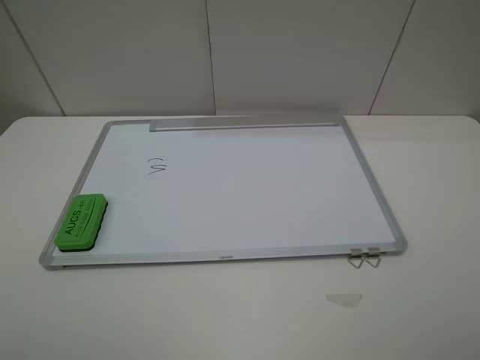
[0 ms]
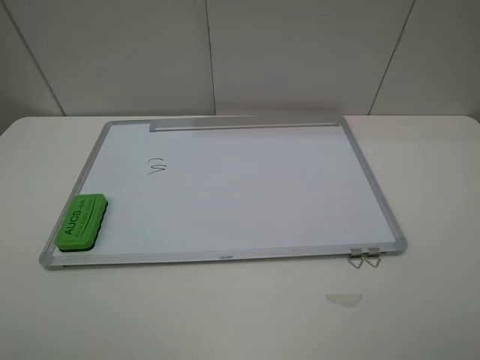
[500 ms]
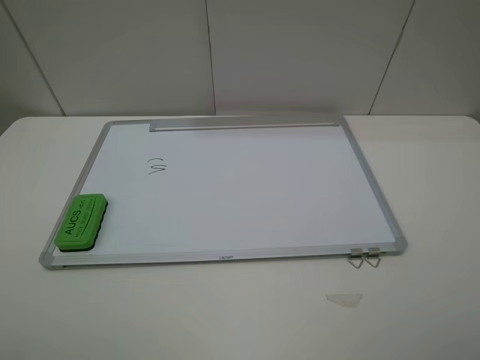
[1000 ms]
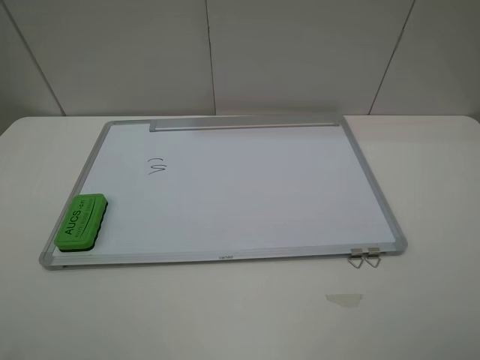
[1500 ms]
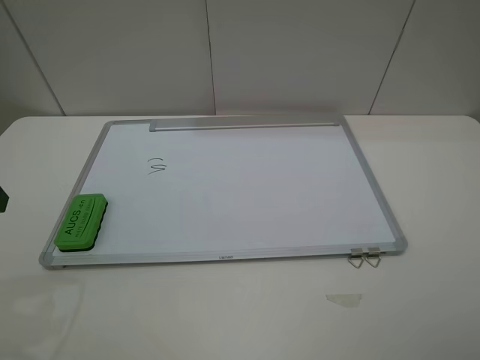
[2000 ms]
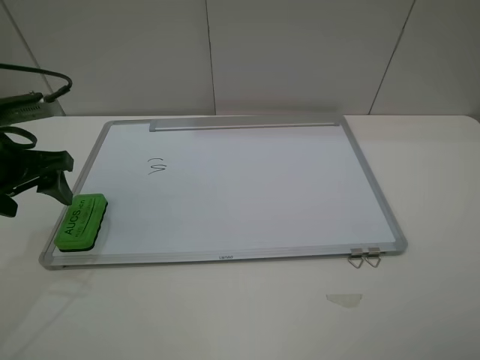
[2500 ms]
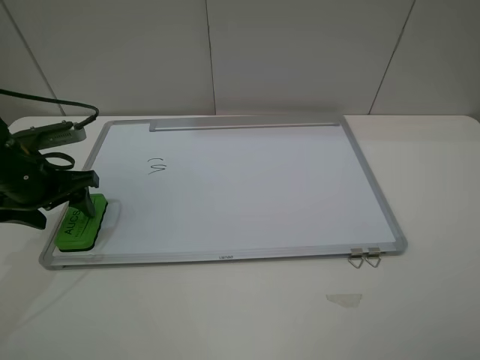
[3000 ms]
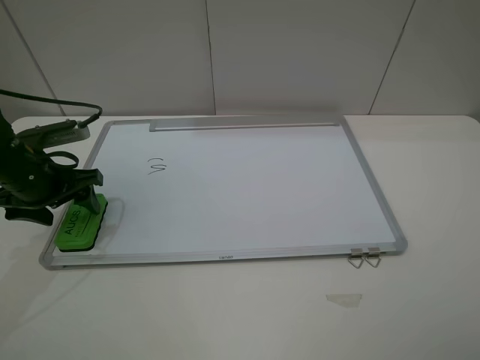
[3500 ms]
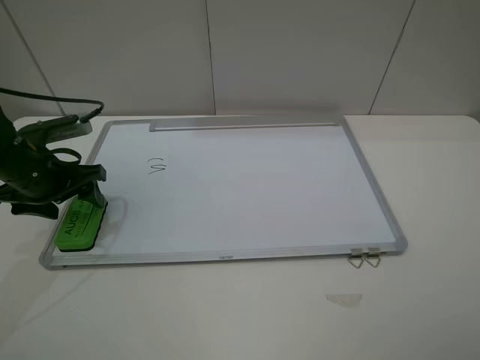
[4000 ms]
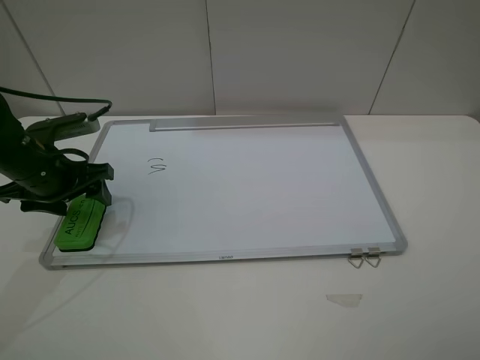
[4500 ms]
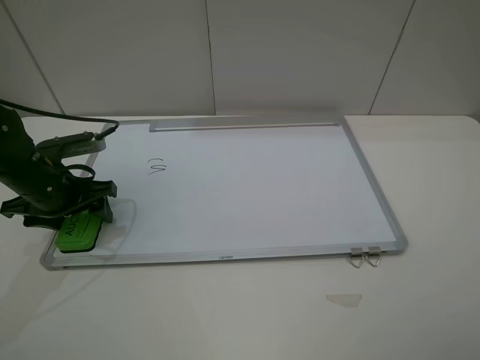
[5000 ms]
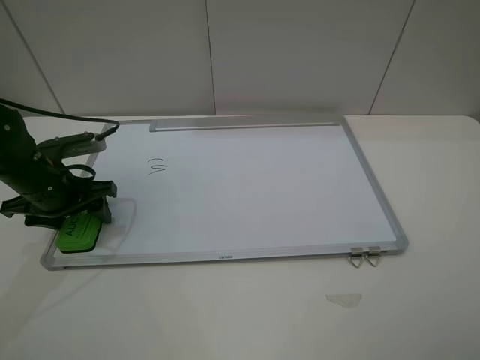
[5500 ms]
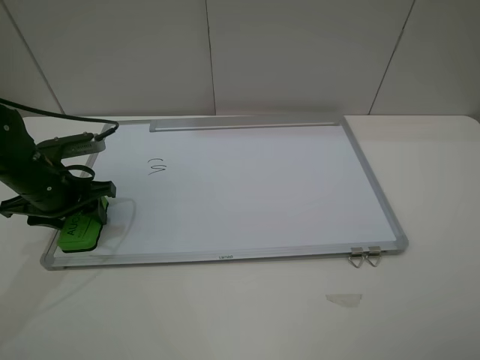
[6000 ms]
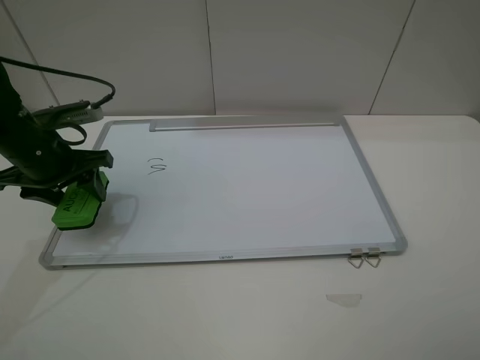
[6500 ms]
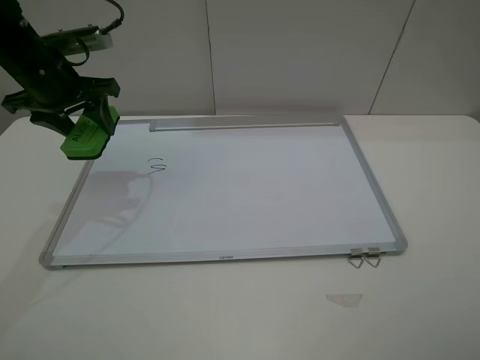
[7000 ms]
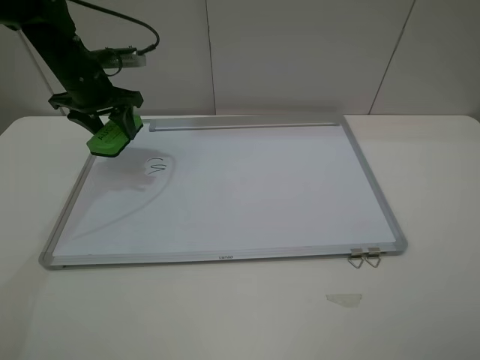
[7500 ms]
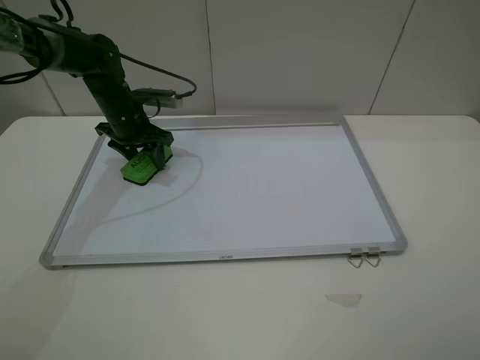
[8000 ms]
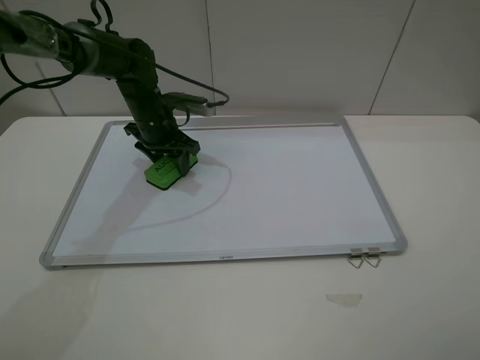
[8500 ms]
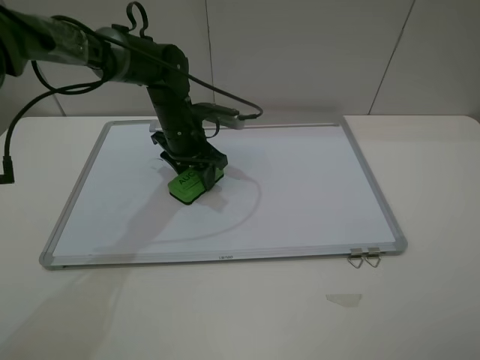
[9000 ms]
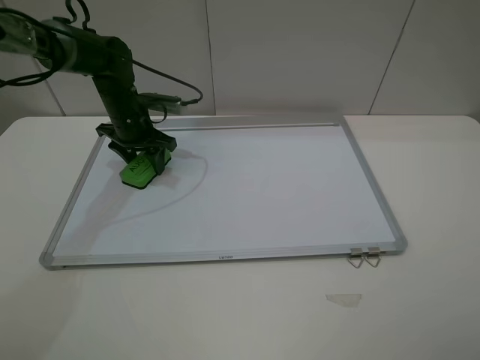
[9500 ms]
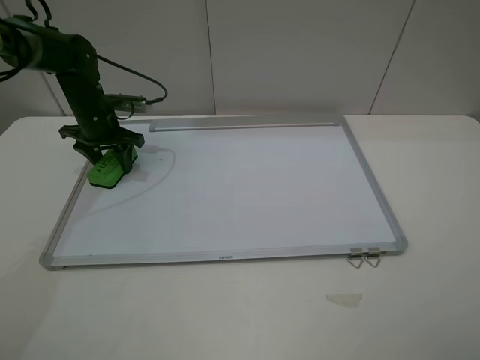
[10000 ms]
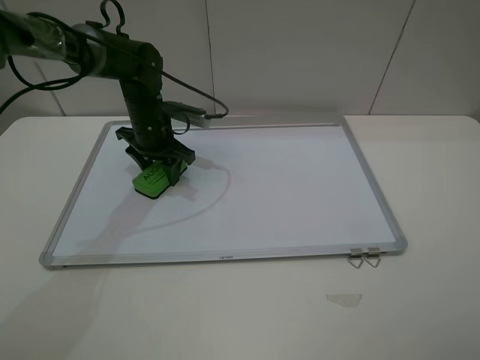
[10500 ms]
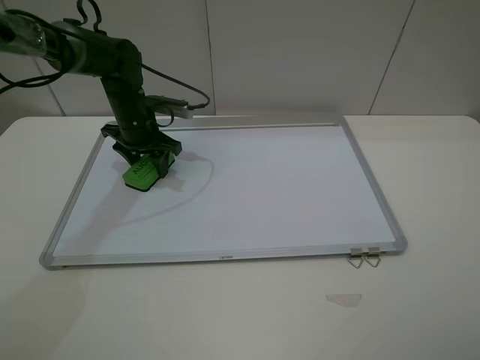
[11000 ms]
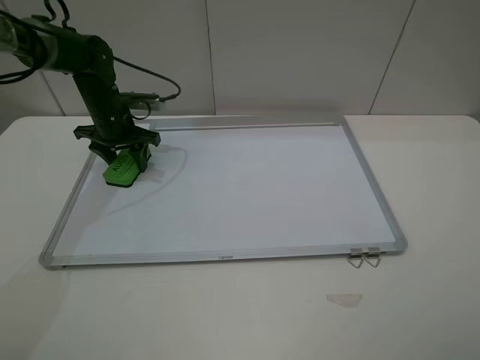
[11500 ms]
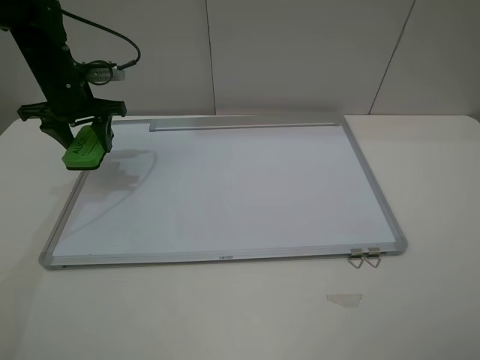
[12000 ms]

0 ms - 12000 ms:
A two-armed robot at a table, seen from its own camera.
Step, 0 ms - 5500 ms: Grasp the eraser with the left gripper.
Step, 6000 ms - 11000 ms: Grasp the eraser and wipe the blackboard with the left gripper.
2000 ms - 4000 ms: The left gripper travels downward and forward by about 15 cm.
4000 ms - 6000 ms: The left gripper closes its fingers.
6000 ms - 8000 ms: The left gripper heads forward and to the right, covering about 20 cm.
8000 ms - 10000 ms: The left gripper travels to the right and back again, approximately 10 cm each way.
10000 ms - 12000 ms: The left gripper travels upward by some 10 cm, and goes to the right and returns, roughly 10 cm each way.

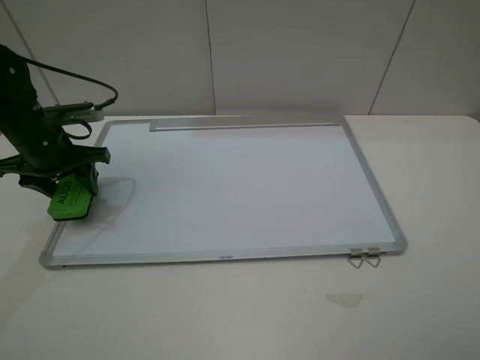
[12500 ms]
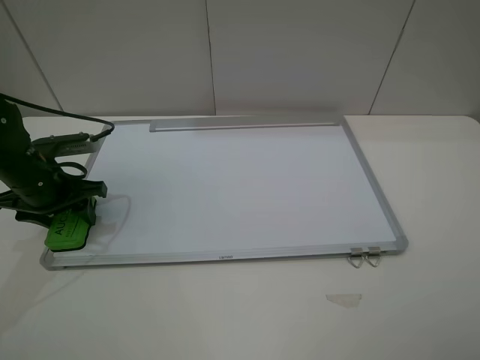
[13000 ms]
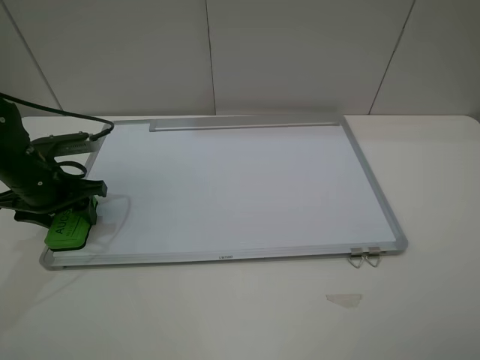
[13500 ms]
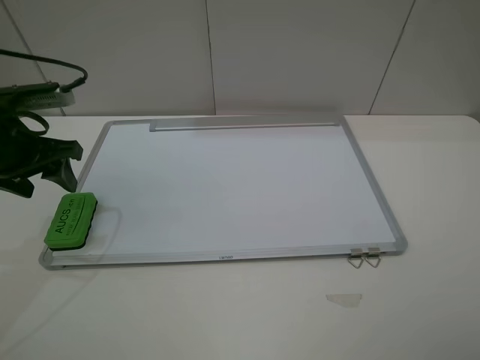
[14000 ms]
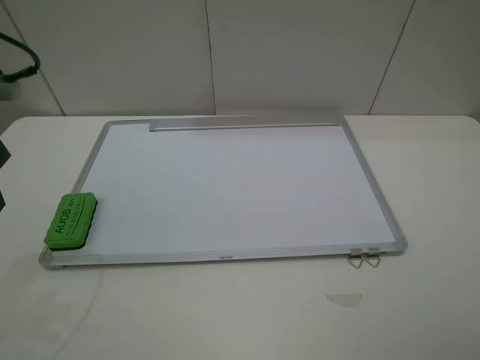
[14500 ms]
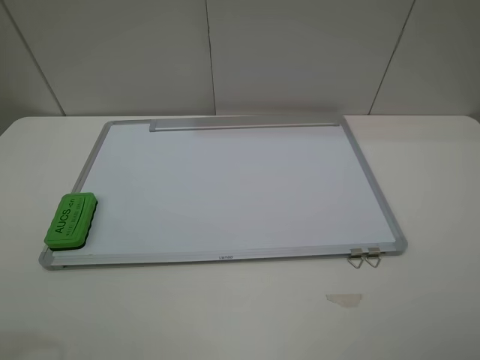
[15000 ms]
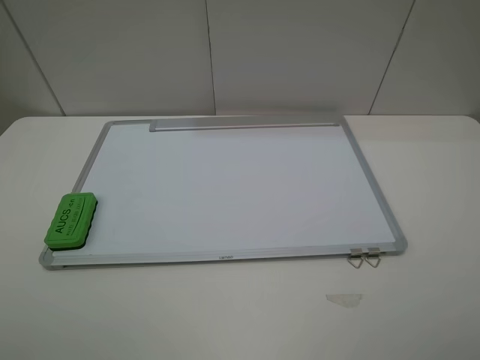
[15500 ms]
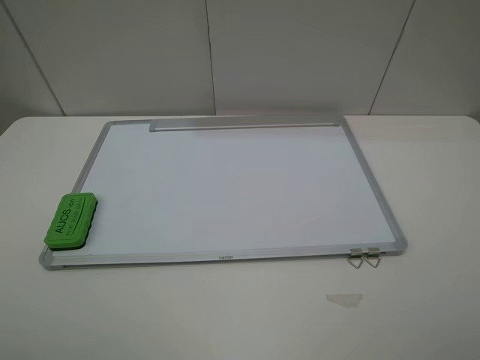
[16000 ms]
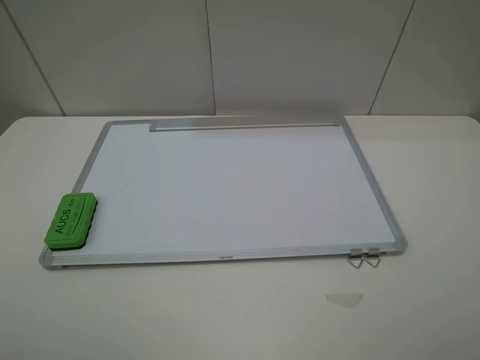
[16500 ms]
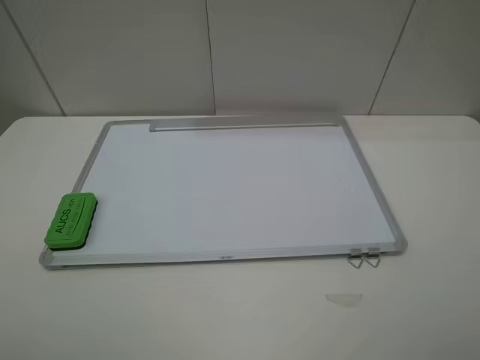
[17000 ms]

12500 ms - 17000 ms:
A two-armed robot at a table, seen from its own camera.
12500 ms - 14500 ms: The left gripper shifts about 20 cm backward and upward.
14500 ms - 17000 ms: The left gripper is displaced backward by roughly 20 cm.

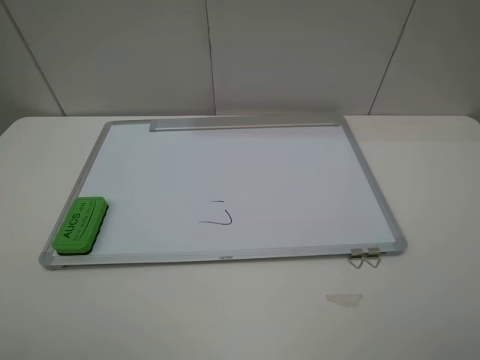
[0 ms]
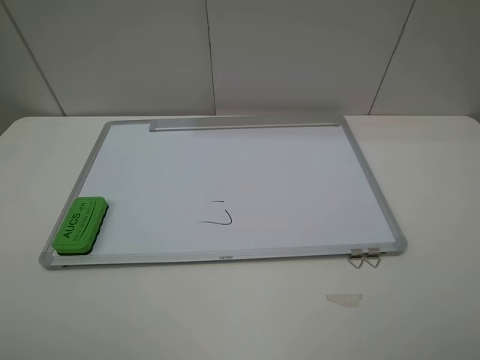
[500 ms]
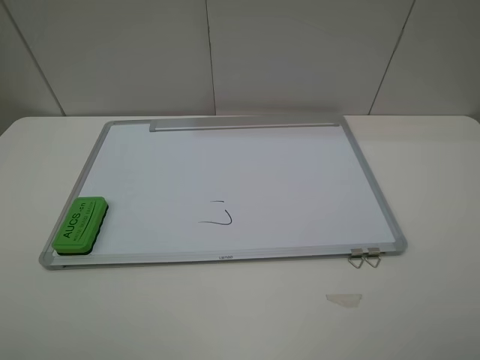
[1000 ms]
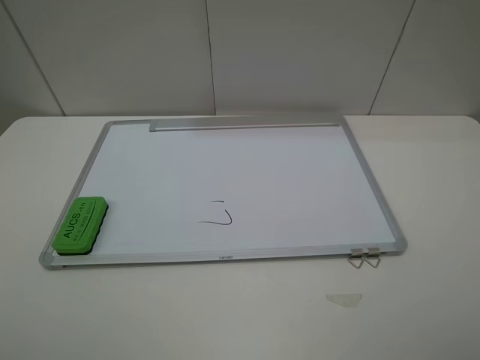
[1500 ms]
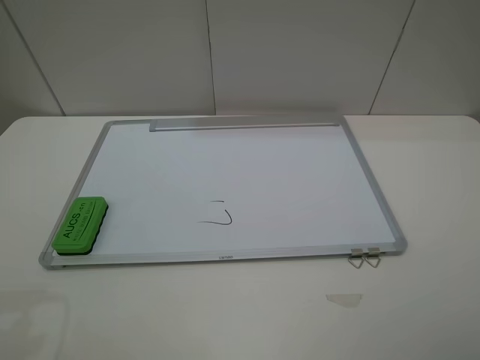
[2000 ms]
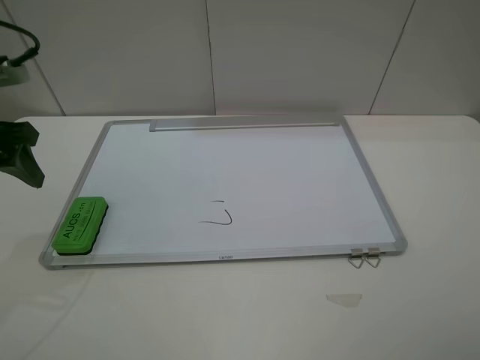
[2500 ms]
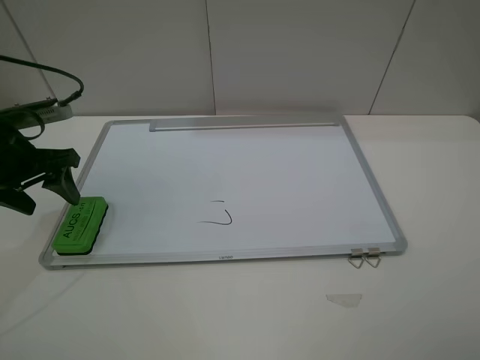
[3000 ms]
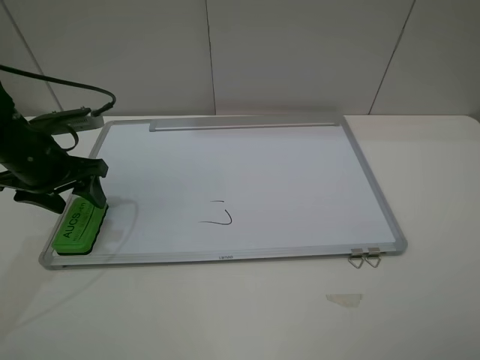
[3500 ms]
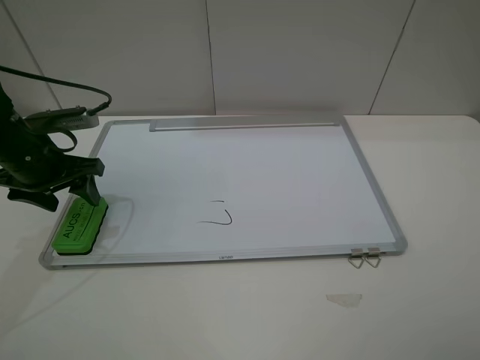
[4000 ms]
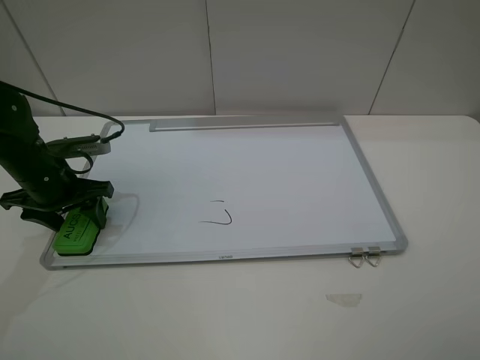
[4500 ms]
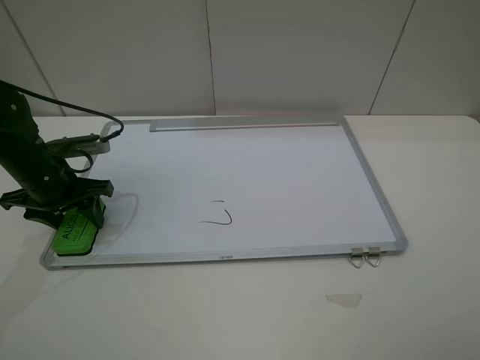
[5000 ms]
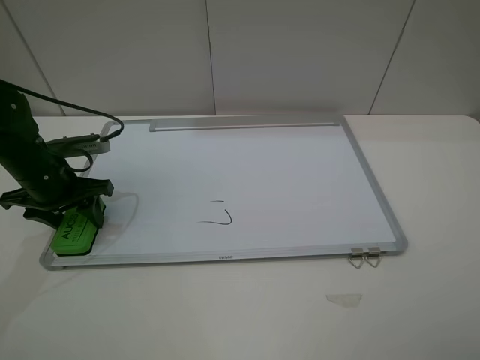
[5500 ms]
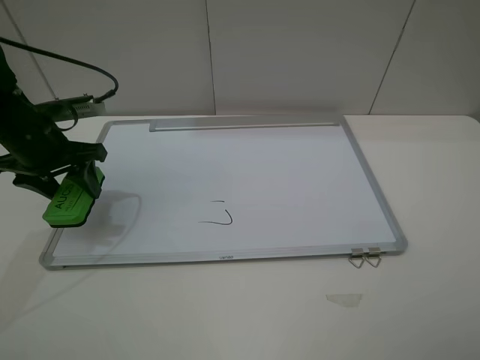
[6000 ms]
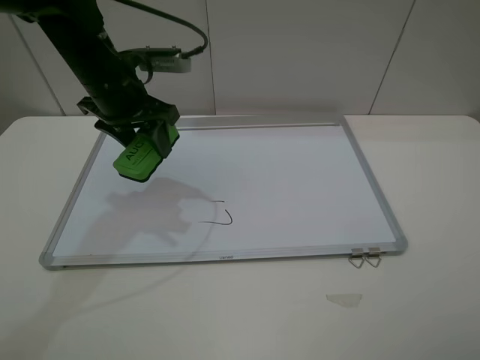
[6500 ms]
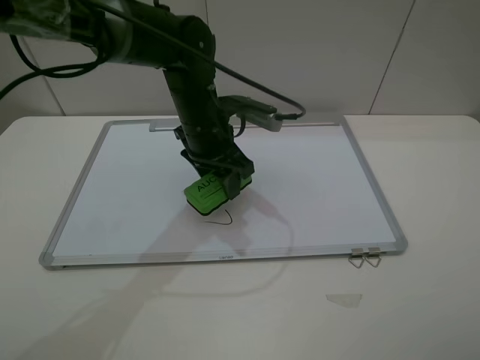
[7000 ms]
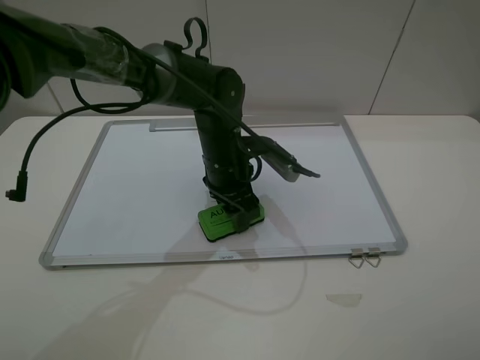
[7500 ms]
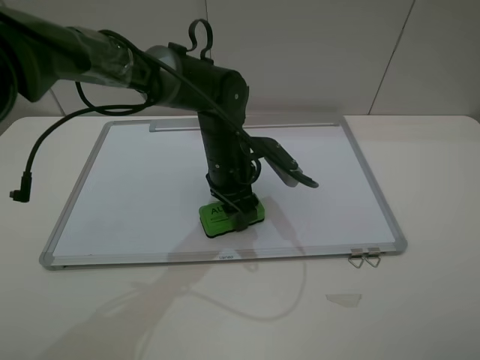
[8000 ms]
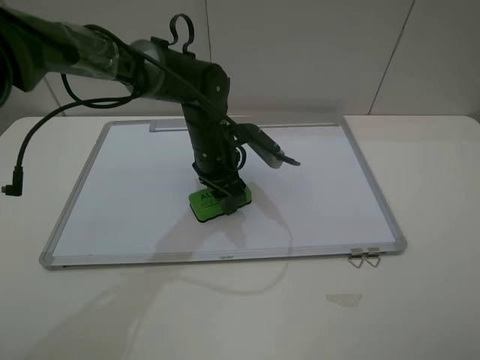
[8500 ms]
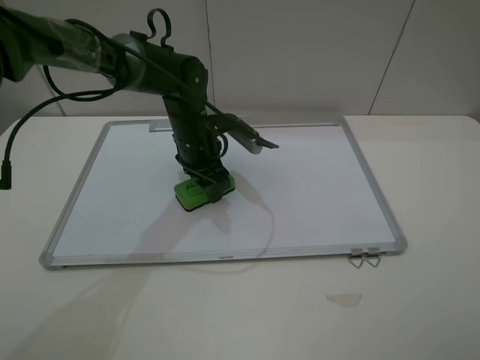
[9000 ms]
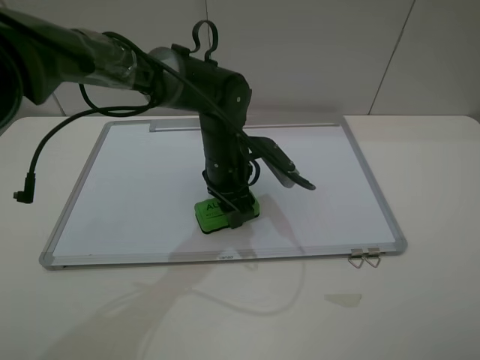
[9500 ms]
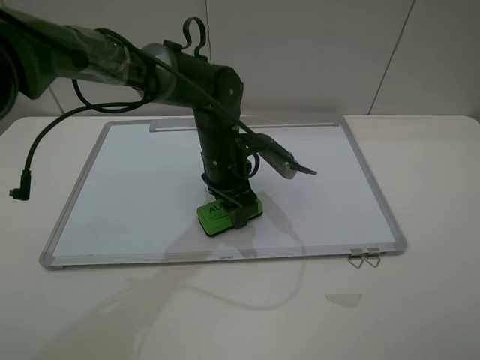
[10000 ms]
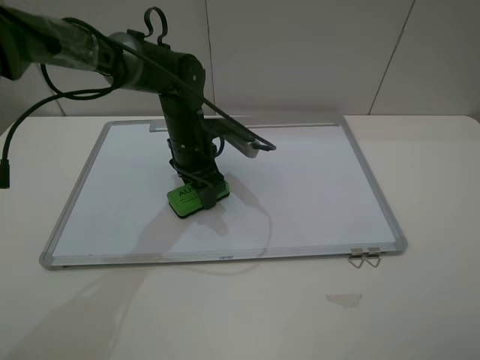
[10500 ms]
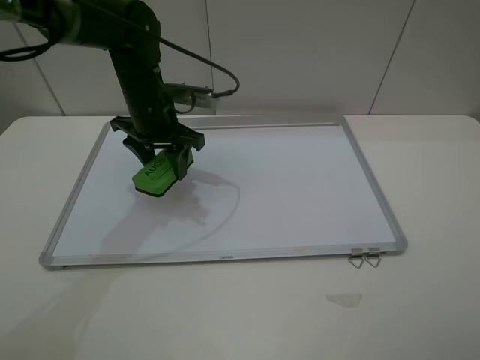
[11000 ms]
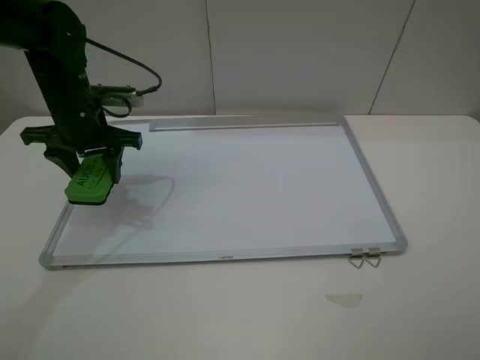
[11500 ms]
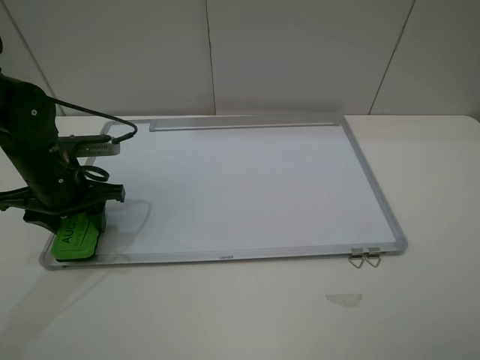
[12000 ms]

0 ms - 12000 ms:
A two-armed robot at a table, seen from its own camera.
Step, 0 ms - 5000 ms: Grasp the eraser with the left gripper.
Step, 5500 ms - 10500 ms: Grasp the eraser and wipe the blackboard with the left gripper.
2000 ms - 4000 ms: The left gripper is displaced downward and forward by about 20 cm.
4000 ms - 6000 ms: The grippers stay close to where they were, moving slightly.
6000 ms - 8000 ms: The left gripper goes approximately 25 cm to the right.
10000 ms - 12000 ms: The left gripper is displaced to the left by roughly 20 cm.
